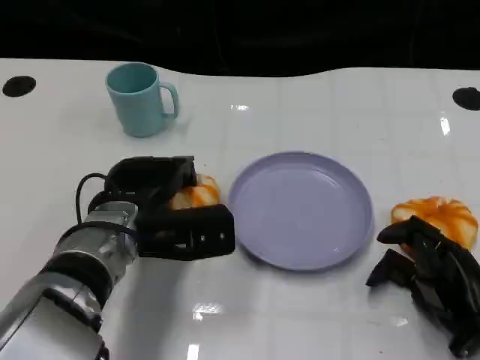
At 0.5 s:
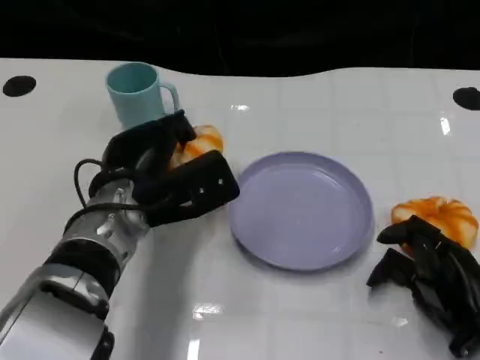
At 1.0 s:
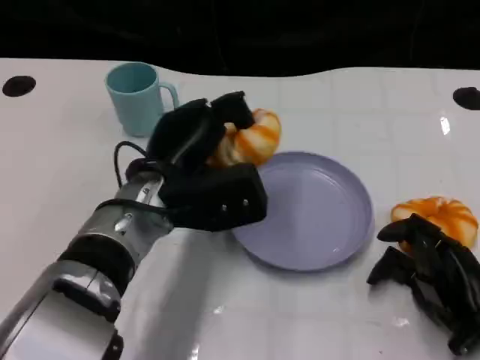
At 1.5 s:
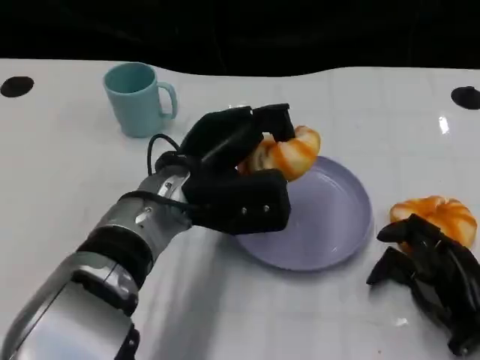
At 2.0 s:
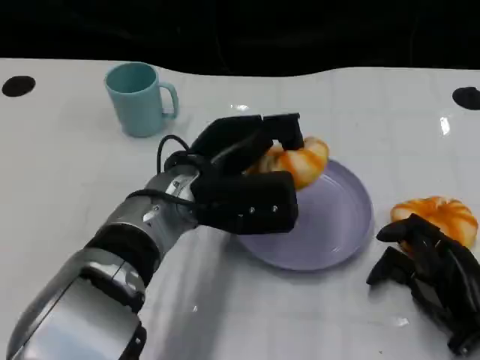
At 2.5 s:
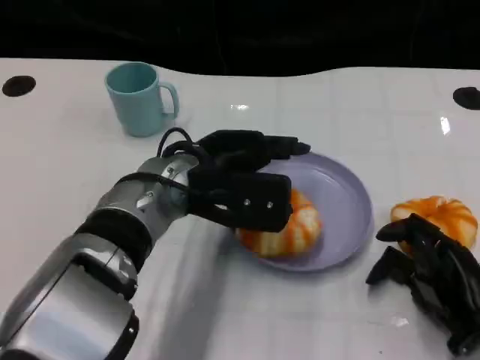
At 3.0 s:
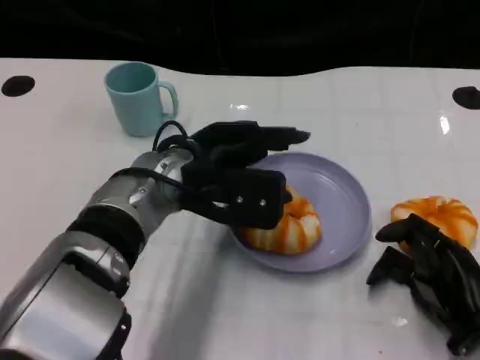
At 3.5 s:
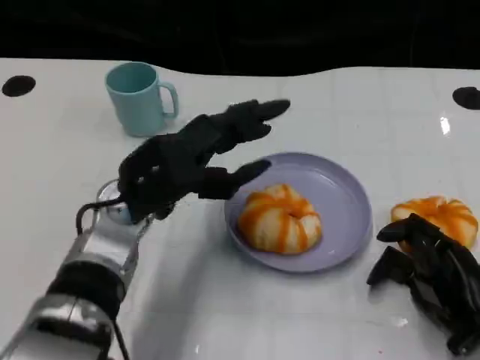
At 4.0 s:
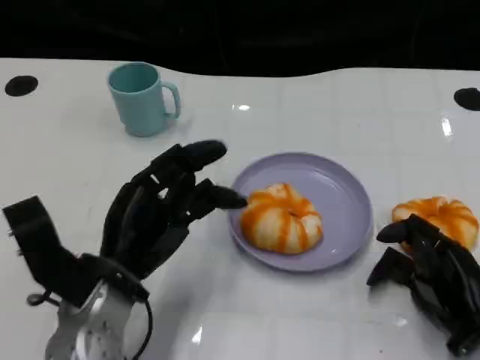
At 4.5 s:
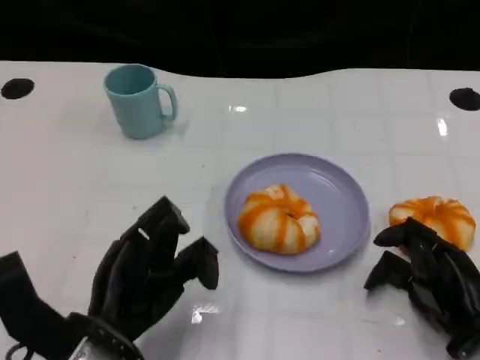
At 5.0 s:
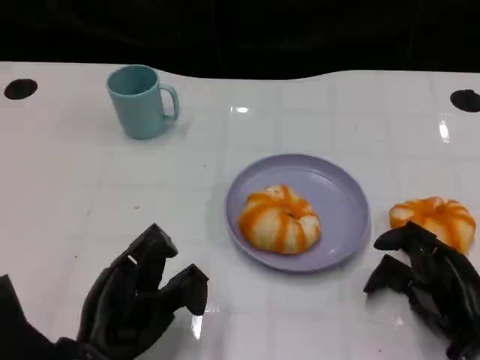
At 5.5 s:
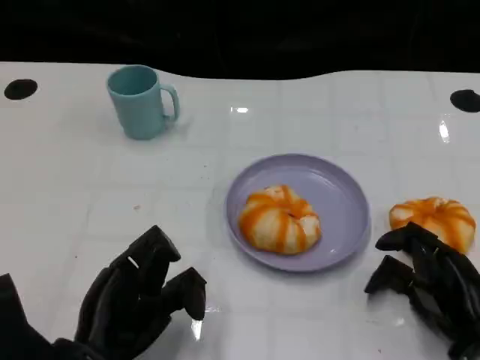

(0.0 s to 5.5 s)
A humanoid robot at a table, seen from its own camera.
Task of the whole recording: Grasp the bread from the table and place it into the plate.
0.0 s - 2.0 s: The left hand goes roughly 5 cm to the right.
2.0 s - 3.5 s: The left hand heads to the left, covering some 5 cm.
3.5 s - 5.5 s: The left hand travels backward, downward and to the left by roughly 15 cm.

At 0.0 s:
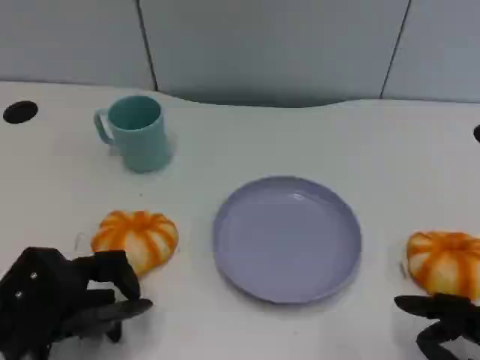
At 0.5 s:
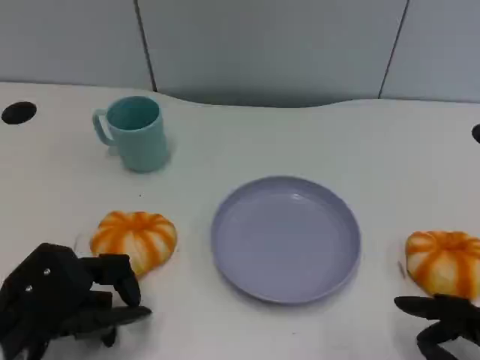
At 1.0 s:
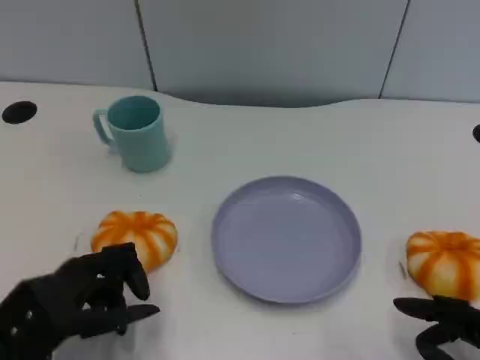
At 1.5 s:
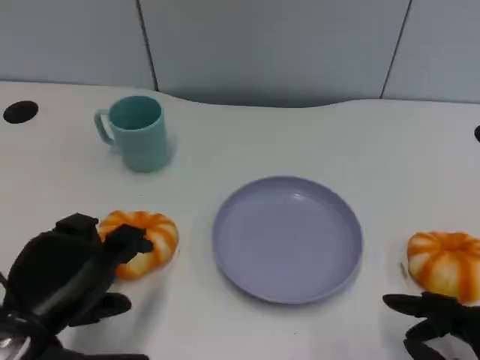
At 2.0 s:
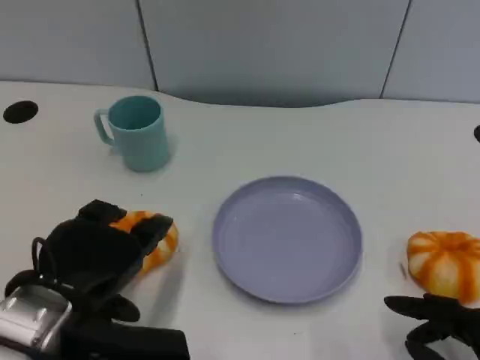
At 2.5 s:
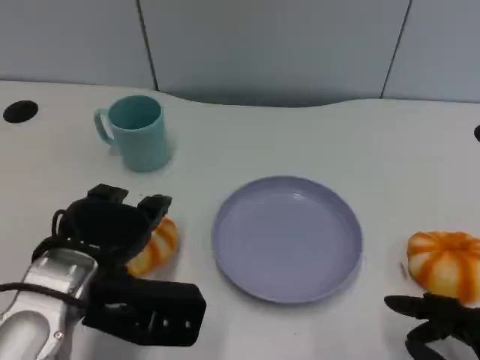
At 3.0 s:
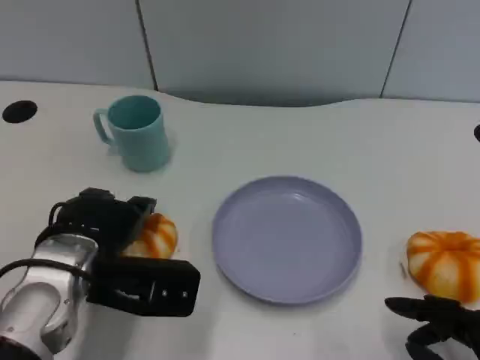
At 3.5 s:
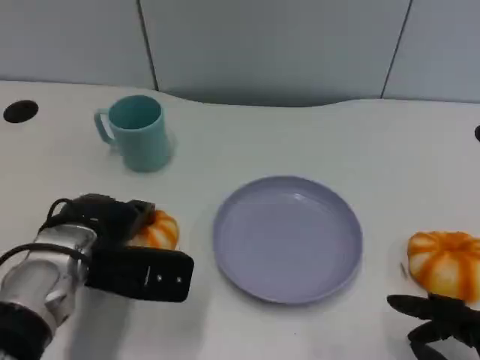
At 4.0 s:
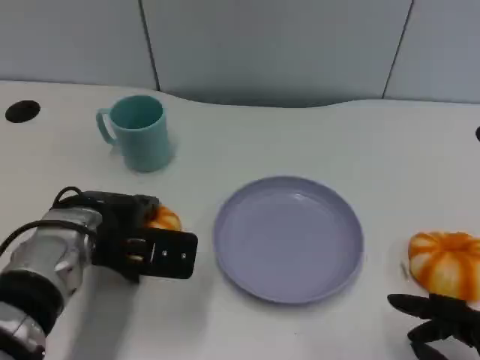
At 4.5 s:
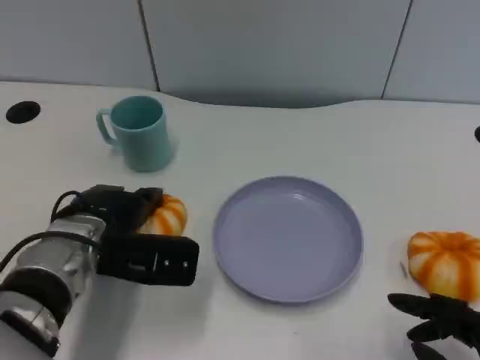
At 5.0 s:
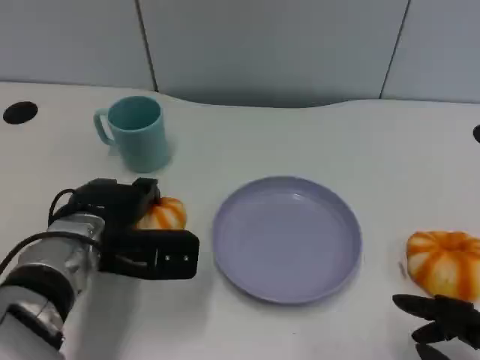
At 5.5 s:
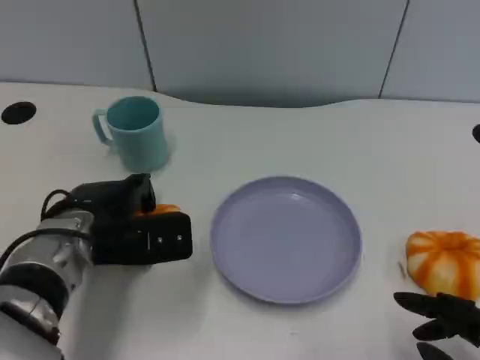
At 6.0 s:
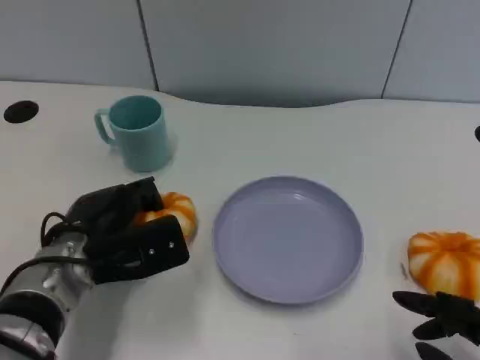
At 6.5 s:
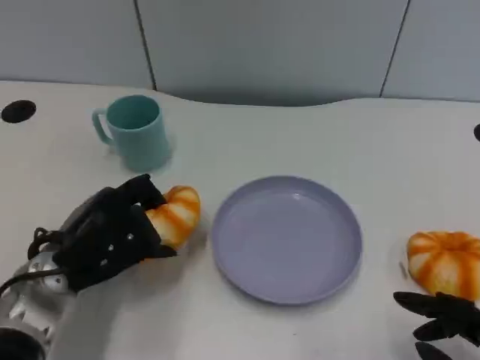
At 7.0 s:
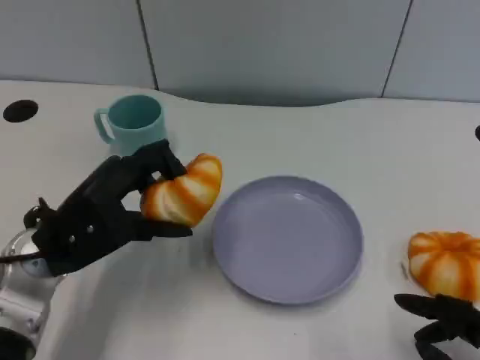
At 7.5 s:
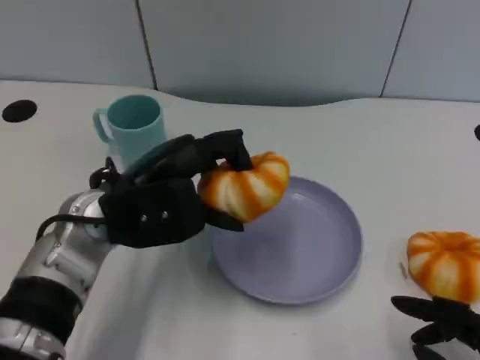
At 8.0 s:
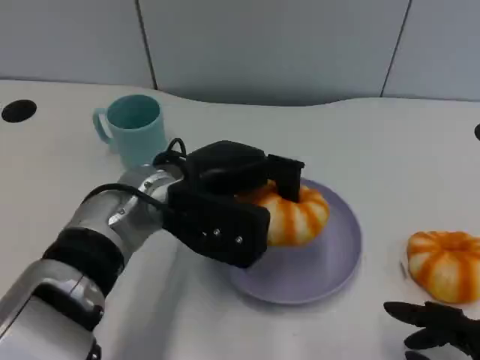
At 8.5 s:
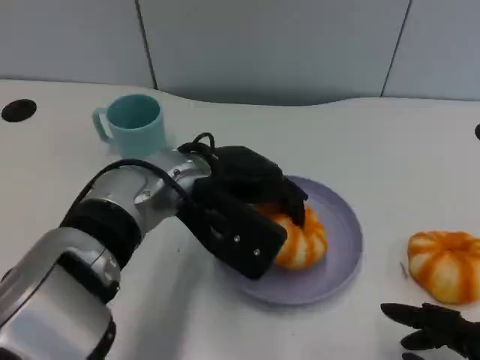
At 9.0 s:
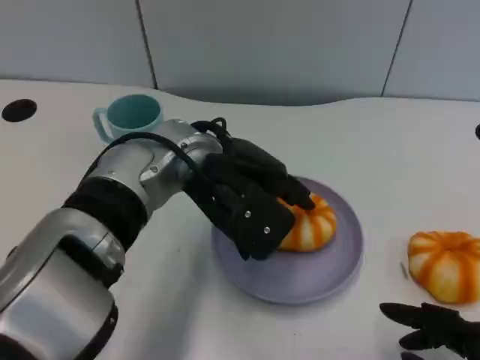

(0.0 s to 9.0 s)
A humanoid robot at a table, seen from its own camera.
Task of the whole recording: Grasp the bread from the table and place it into the plate.
0.0 s - 2.0 s: The left hand is displaced upward by some 10 cm.
2.0 s - 4.5 s: The left hand goes about 10 cm forward and downward.
4.5 s - 7.0 s: The left hand moves roughly 5 cm.
7.0 s - 9.0 s: The left hand moves to the right and upward, approximately 15 cm.

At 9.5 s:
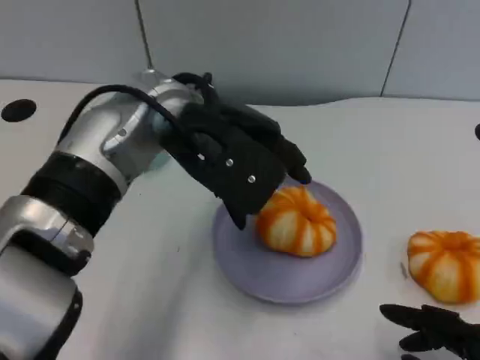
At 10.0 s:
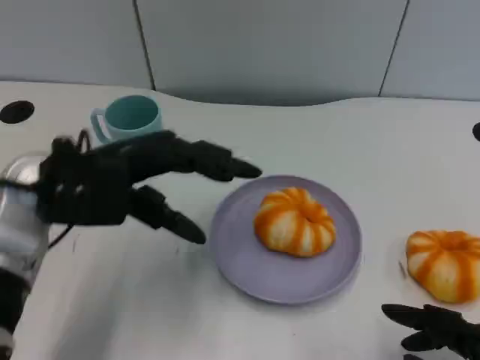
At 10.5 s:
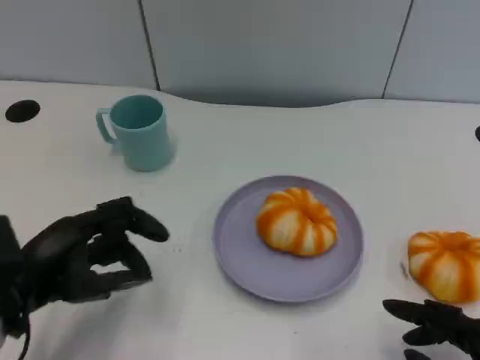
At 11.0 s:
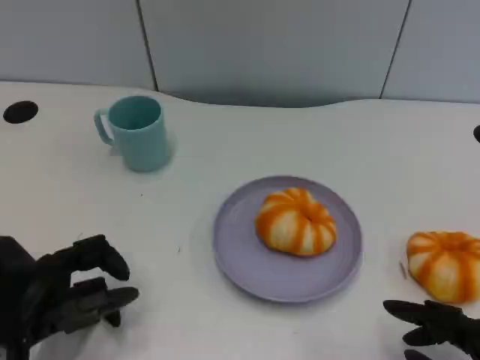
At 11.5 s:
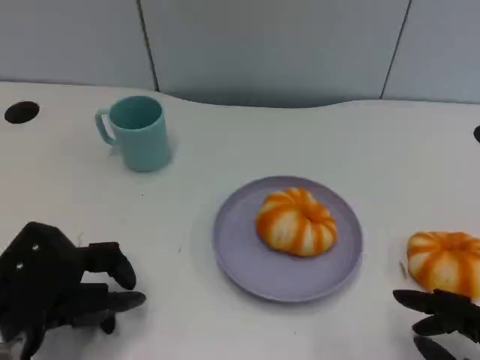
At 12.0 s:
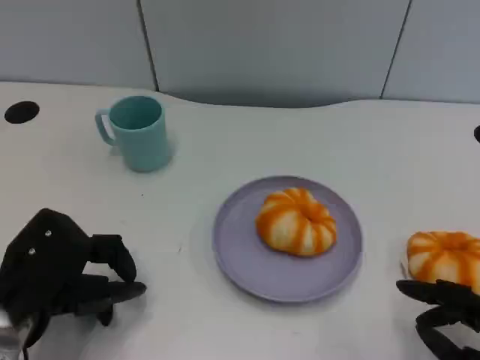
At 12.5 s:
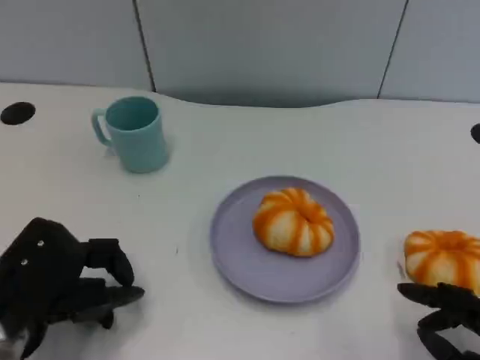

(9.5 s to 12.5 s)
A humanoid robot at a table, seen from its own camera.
Task of the whole recording: Grasp the bread from the table and place it into the plate.
9.5 s - 11.0 s: The left hand moves to the left, downward and backward, about 30 cm.
11.0 s - 12.5 s: The hands stay close to where they were, moving slightly.

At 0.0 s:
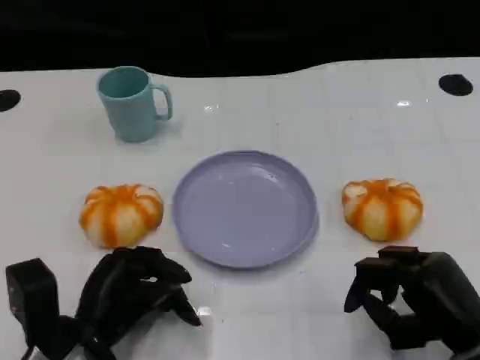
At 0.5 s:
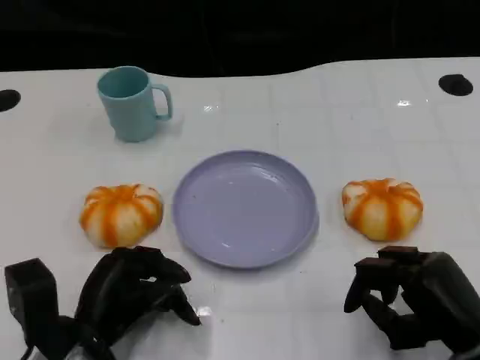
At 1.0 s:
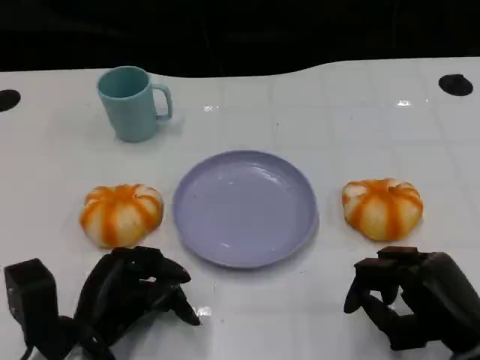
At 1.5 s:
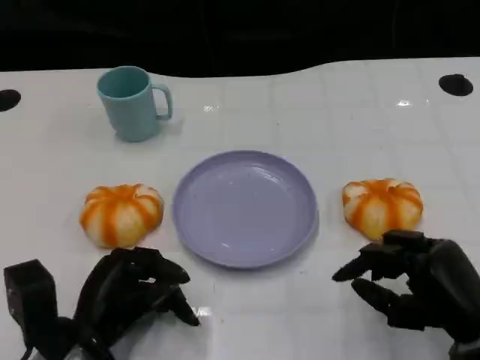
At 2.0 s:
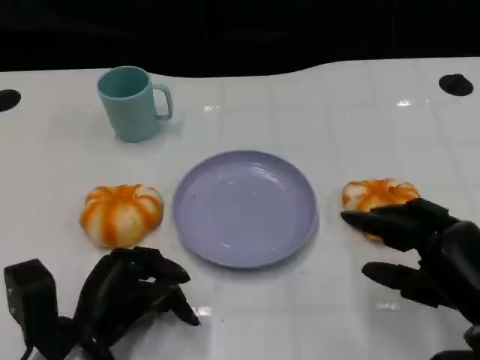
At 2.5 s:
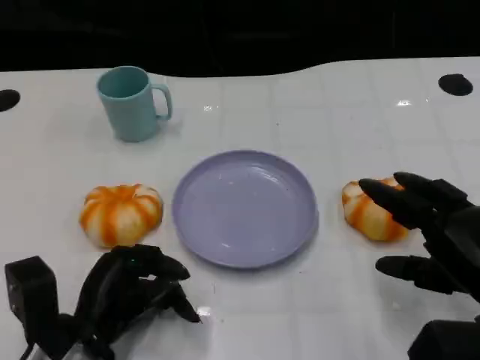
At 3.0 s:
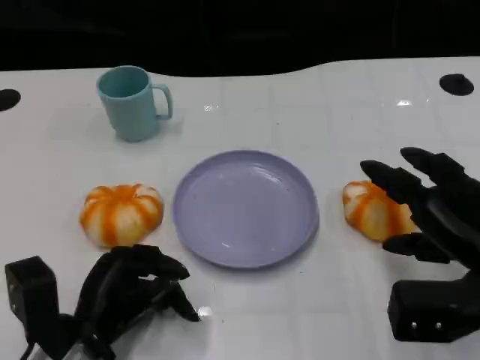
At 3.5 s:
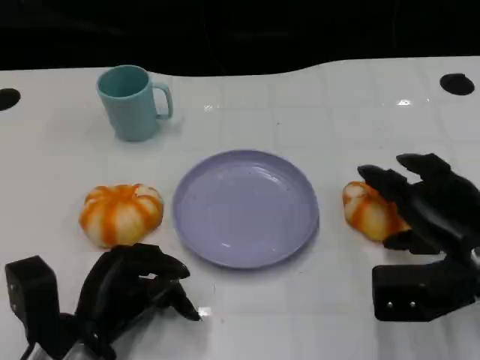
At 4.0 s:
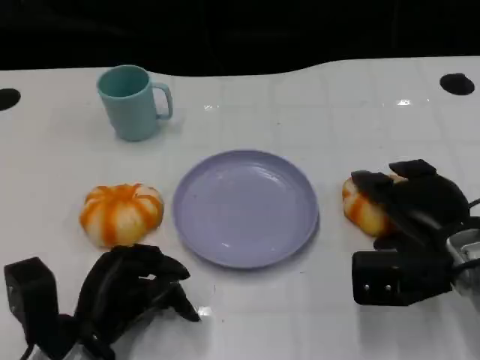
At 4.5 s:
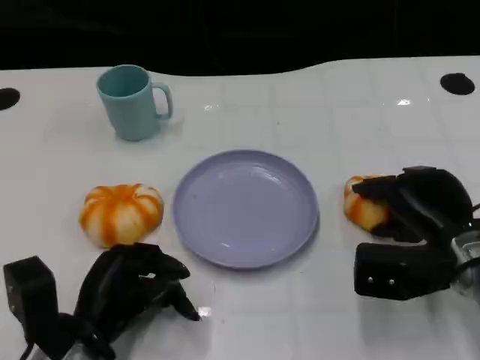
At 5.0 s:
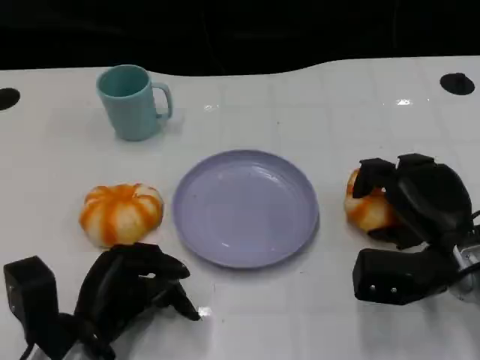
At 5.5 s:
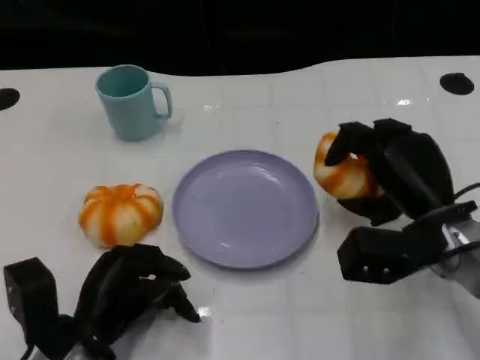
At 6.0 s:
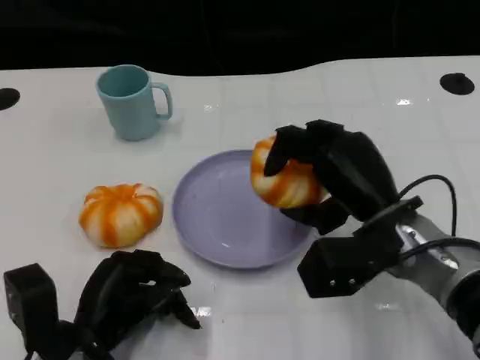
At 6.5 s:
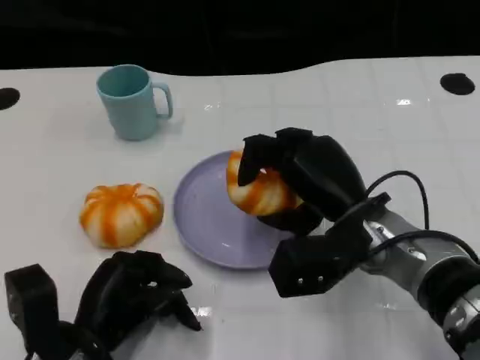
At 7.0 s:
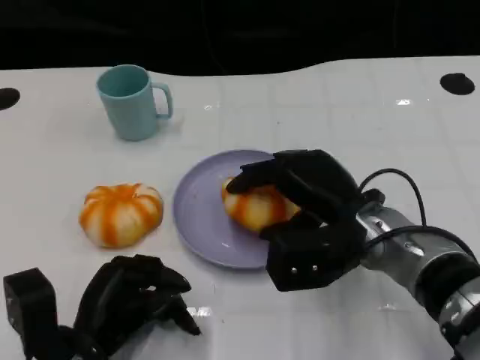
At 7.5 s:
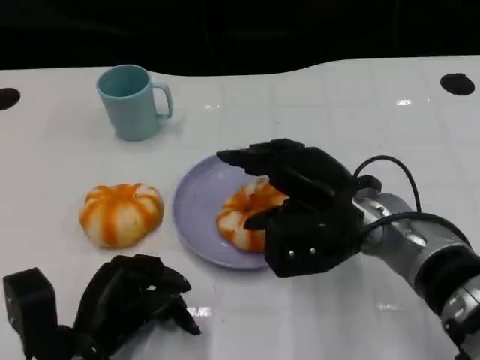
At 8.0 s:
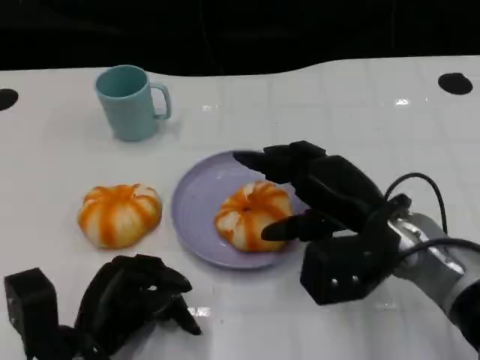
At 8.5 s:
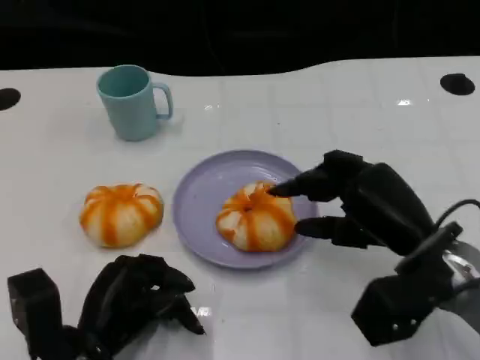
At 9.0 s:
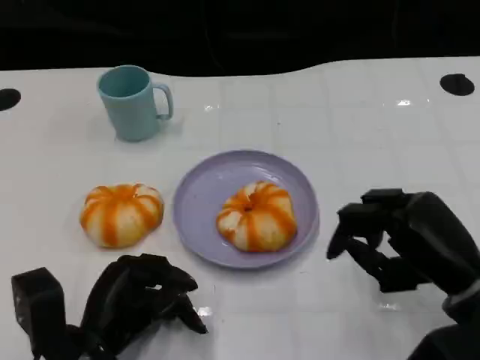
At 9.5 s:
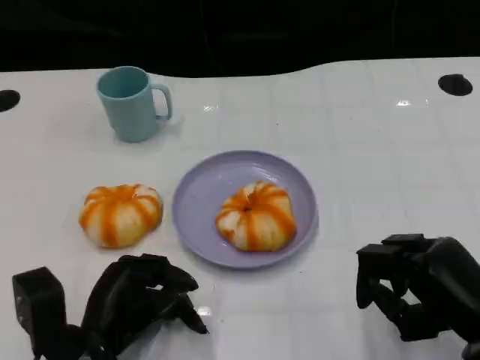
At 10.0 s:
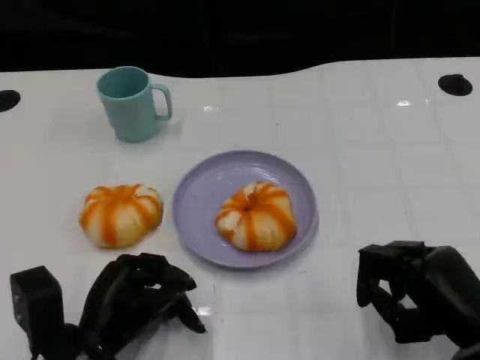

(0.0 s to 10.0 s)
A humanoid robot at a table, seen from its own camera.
Task of the whole recording: Grasp the bread from the table and place it into the plate.
0.0 s - 2.0 s: The hands make only small movements.
2.0 s - 4.0 s: The right hand shifts about 10 cm forward.
4.0 s - 6.0 s: The right hand heads to the left, covering approximately 5 cm.
8.0 s - 10.0 s: The right hand goes some 15 cm backward, to the right and downward.
